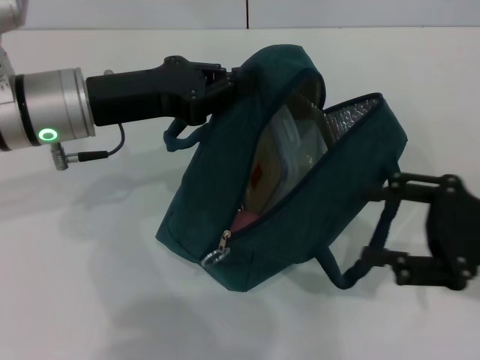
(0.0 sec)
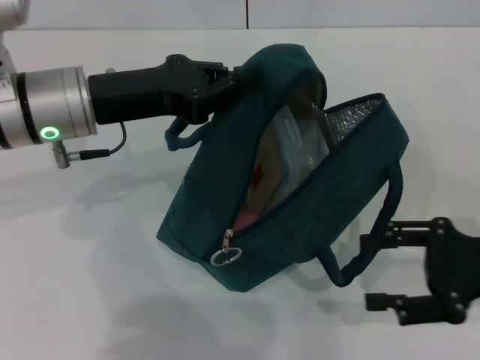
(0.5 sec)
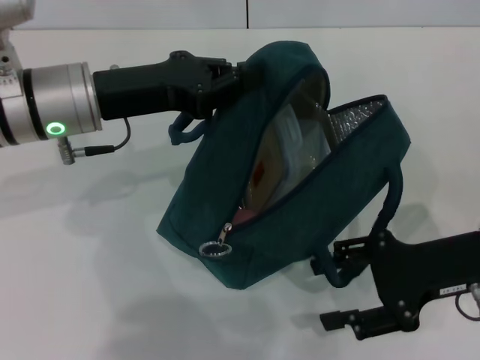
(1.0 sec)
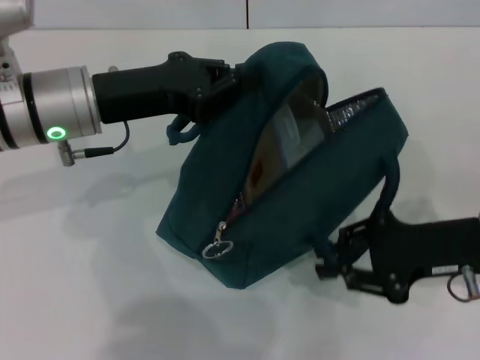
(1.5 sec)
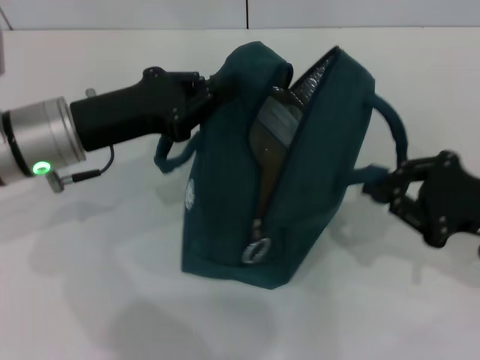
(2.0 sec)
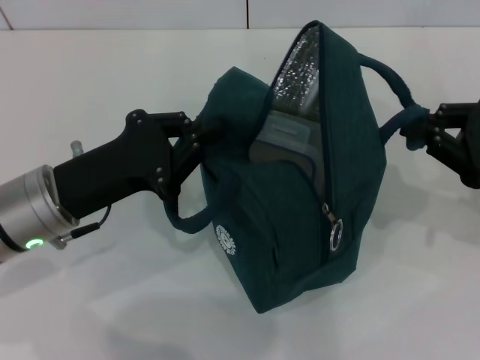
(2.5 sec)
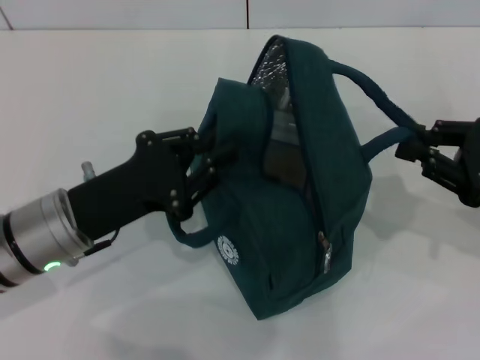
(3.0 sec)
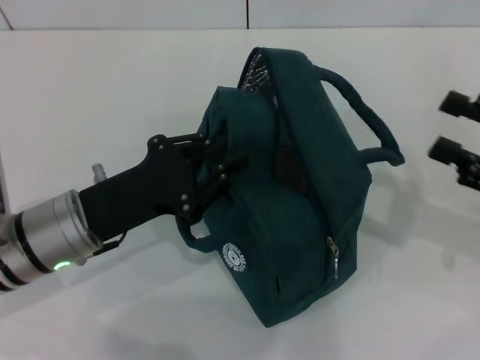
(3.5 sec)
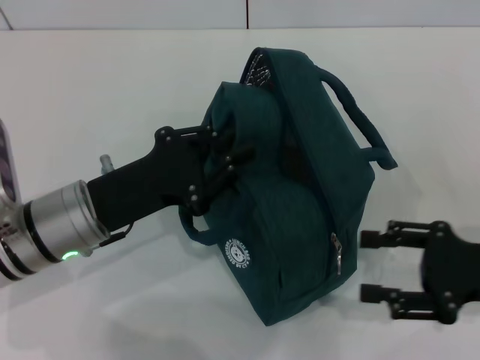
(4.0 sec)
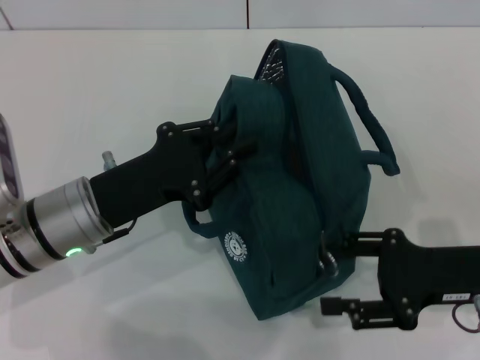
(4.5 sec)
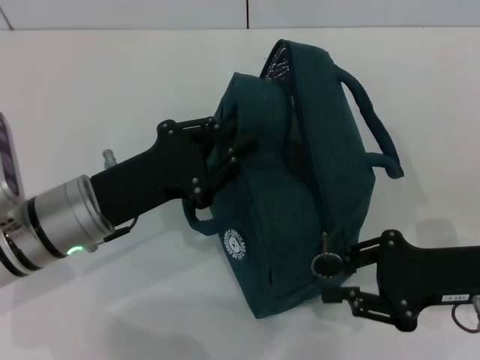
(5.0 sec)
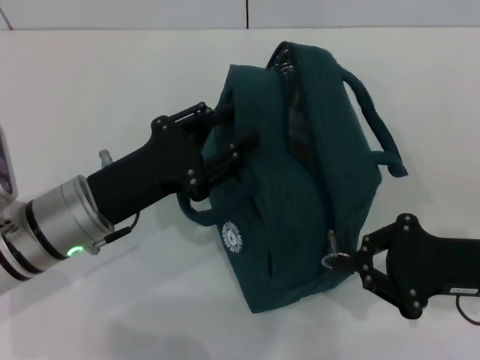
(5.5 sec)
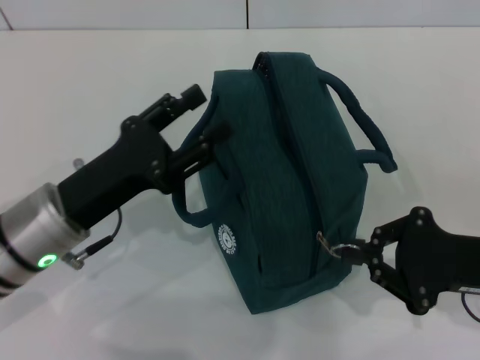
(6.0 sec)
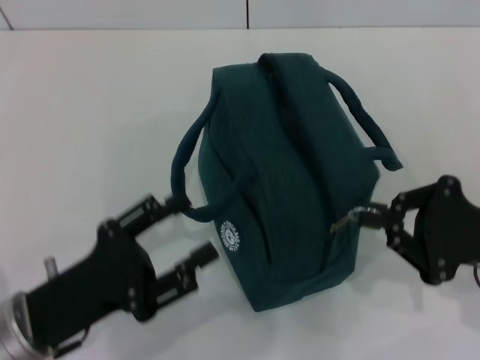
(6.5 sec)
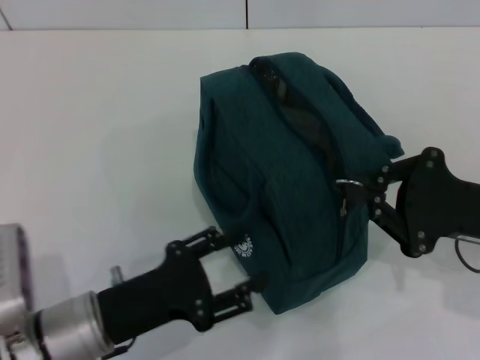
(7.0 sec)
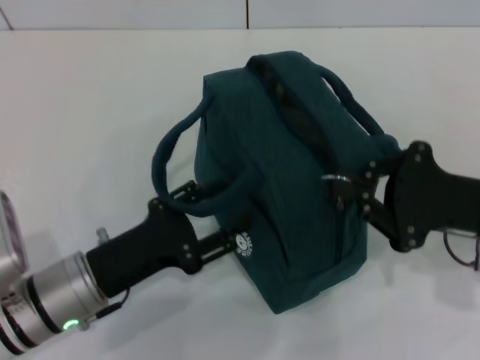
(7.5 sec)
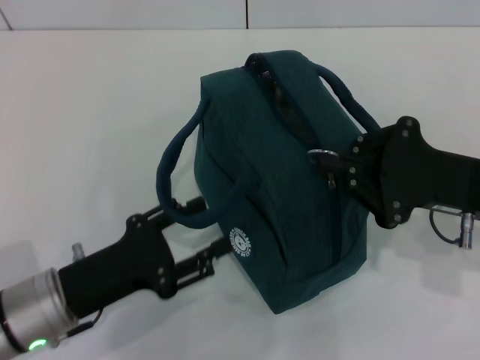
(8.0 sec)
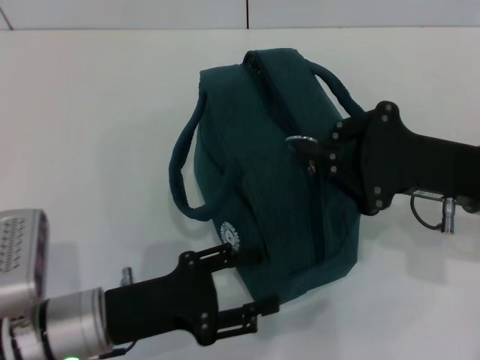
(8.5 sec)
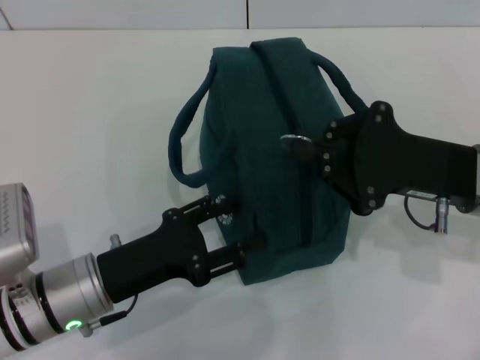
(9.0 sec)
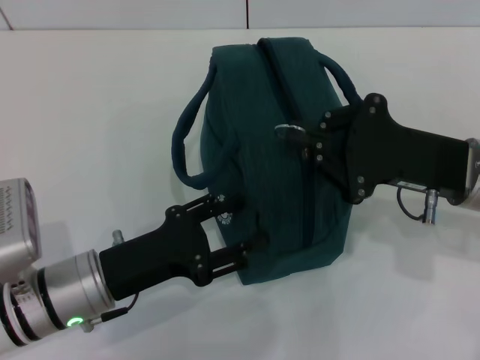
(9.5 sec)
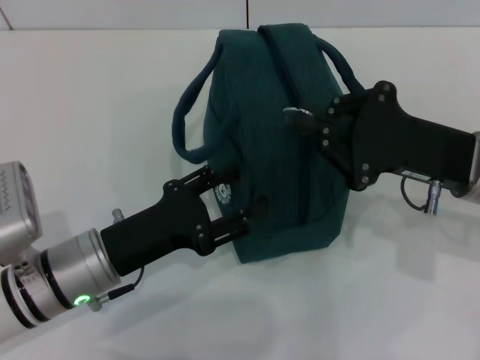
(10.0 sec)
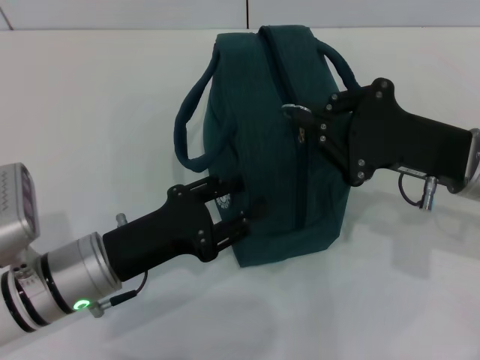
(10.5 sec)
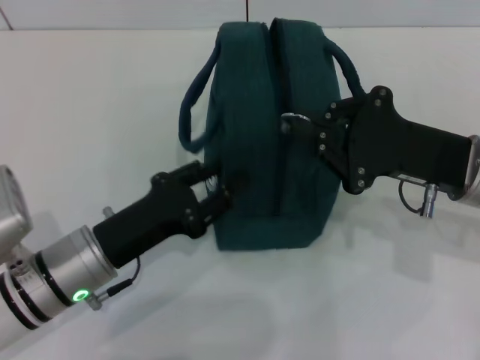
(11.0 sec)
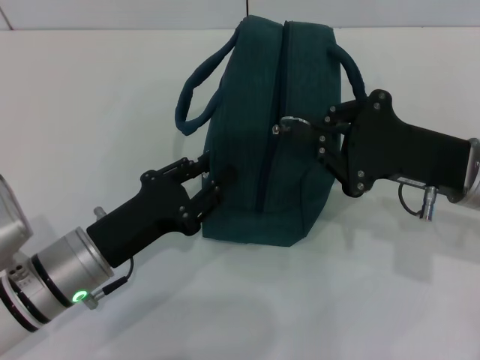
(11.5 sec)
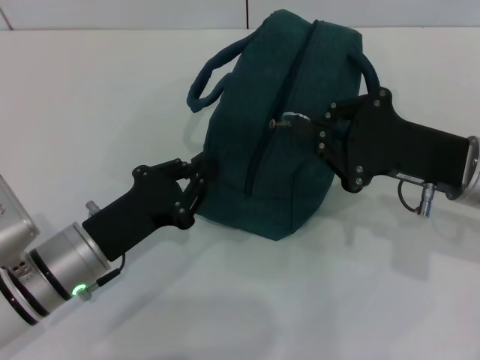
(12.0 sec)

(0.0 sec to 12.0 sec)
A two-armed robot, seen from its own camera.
Step, 0.0 sec - 3.0 sec: Hold the lunch bag with your right hand.
0.0 sec - 2.0 sec: The right gripper closes.
2.0 sec - 4.0 sec: The left gripper is displaced backward and downward by some 10 cm. Meanwhile the right gripper opens.
4.0 sec - 6.0 sec: The right gripper closes its fingers; the left gripper opens up.
6.0 sec - 8.0 sec: The right gripper changes place by approximately 5 cm; the left gripper ends up about 5 cm from where it was.
10.0 sec - 12.0 sec: The left gripper closes its fingers.

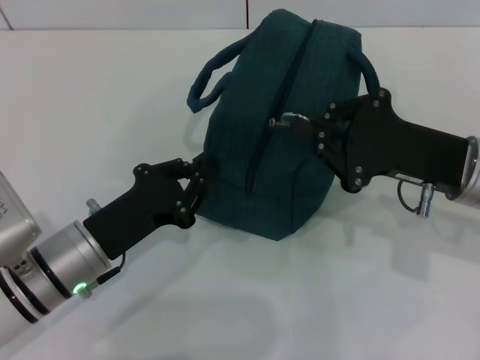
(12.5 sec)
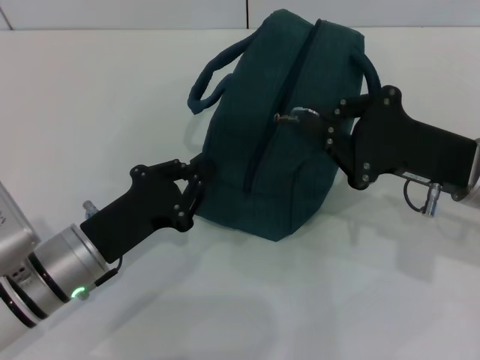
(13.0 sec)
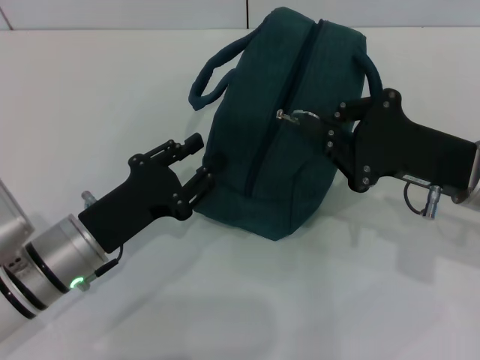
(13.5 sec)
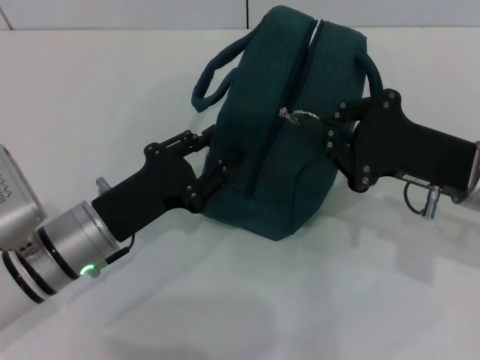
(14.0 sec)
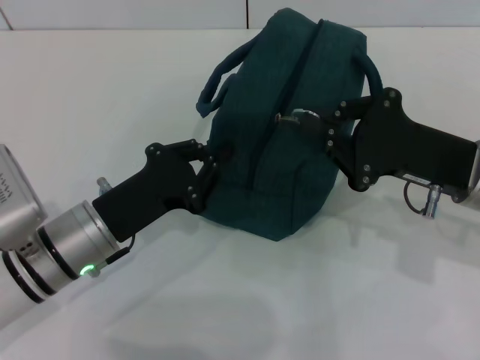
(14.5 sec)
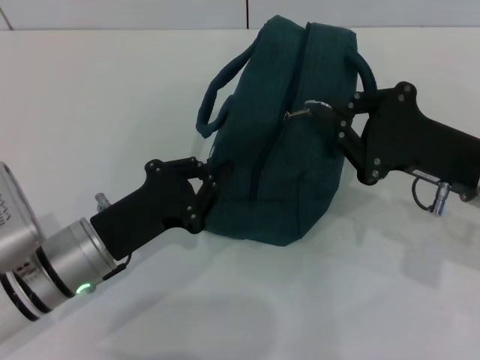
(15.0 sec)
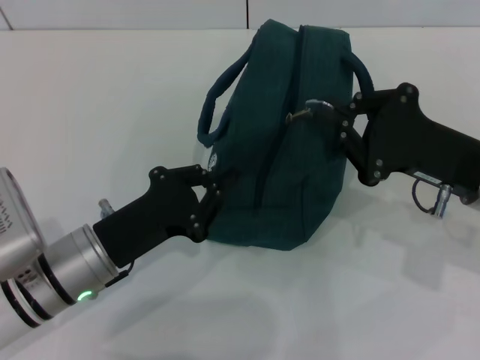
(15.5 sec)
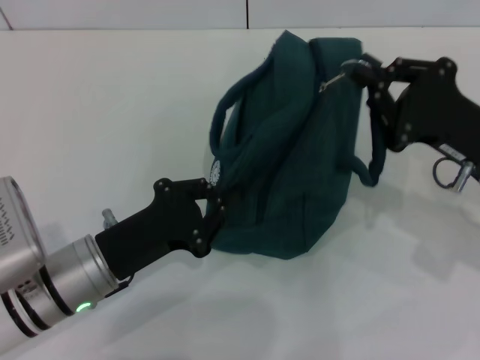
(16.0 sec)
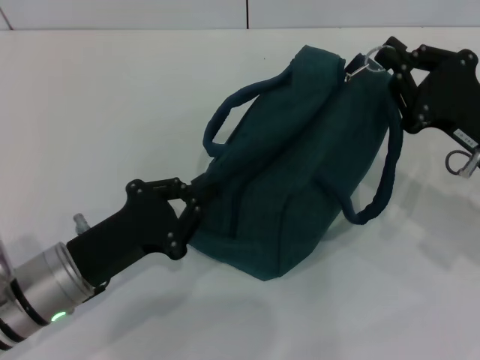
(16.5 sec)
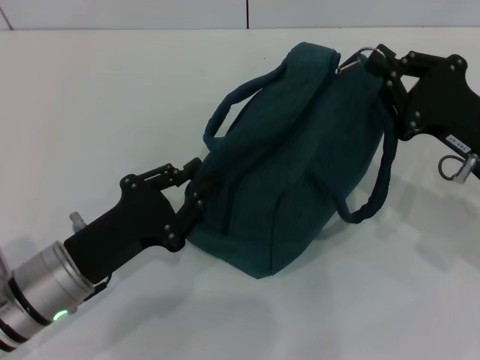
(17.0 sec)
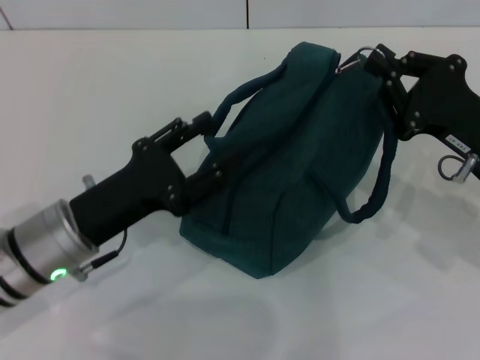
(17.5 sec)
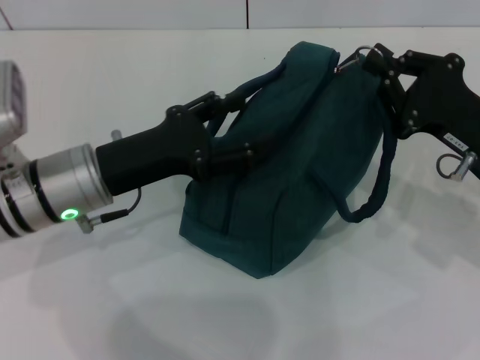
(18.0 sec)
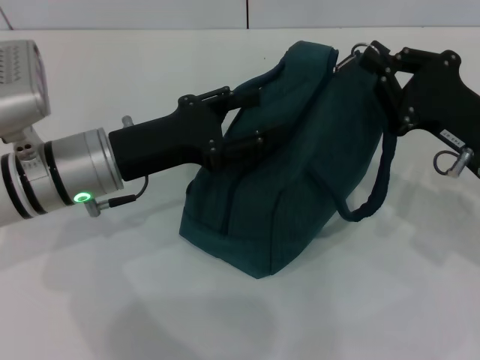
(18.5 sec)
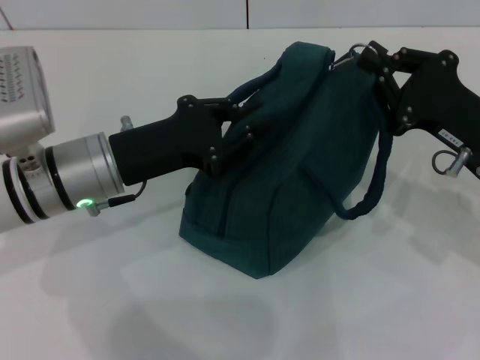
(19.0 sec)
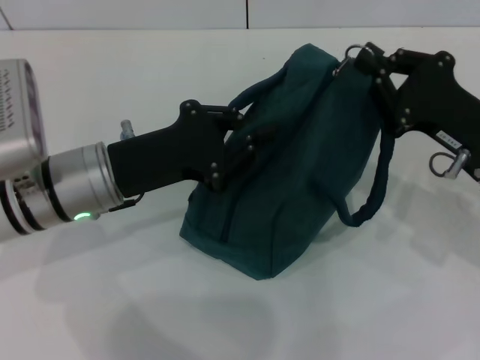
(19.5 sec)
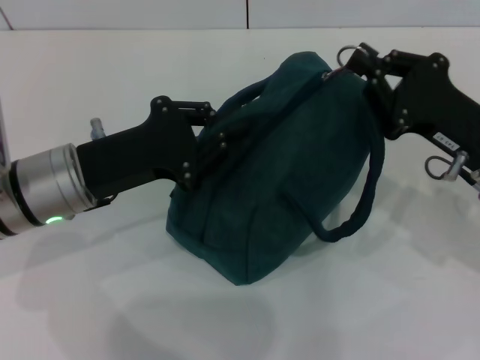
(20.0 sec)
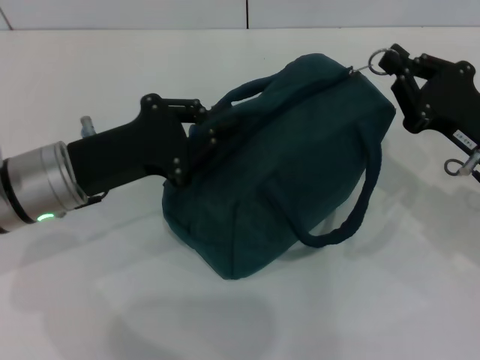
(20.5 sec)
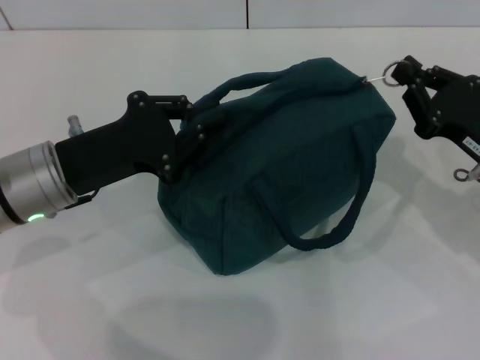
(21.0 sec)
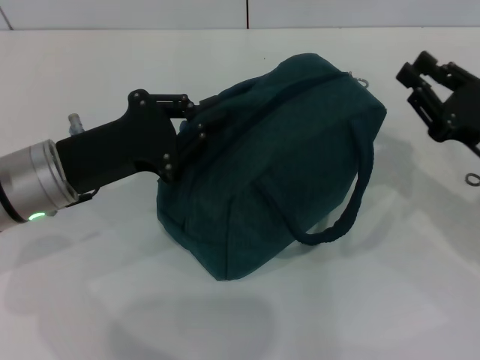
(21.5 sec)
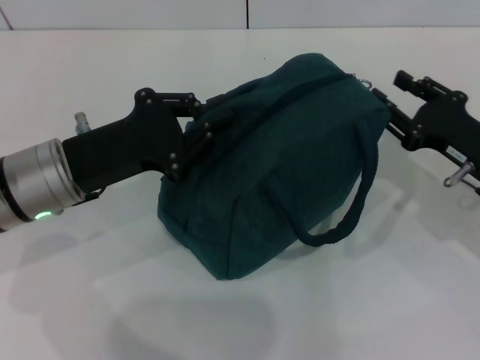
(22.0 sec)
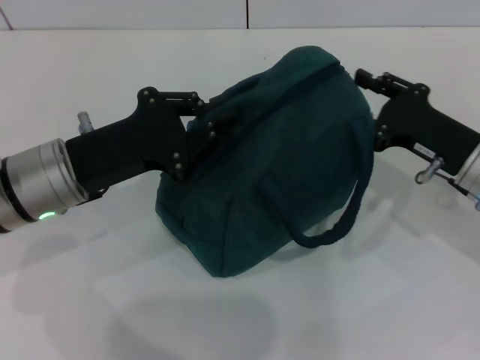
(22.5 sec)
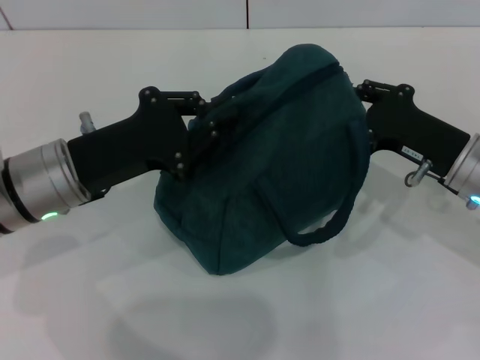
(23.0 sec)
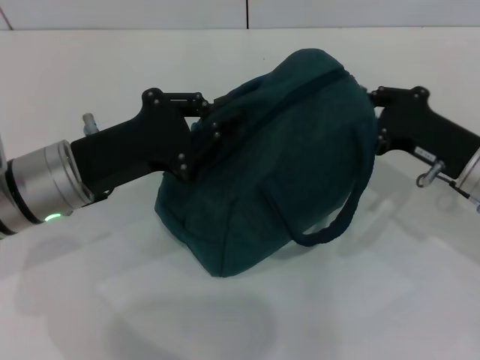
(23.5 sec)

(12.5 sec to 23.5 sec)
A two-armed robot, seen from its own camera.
12.5 sec - 14.5 sec: The grippers make only small movements.
16.0 sec - 18.0 sec: The left gripper heads upward and forward, covering approximately 10 cm, and opens.
18.0 sec - 20.0 sec: The left gripper closes its fingers.
20.0 sec - 21.5 sec: There are only small adjustments of the grippers.
21.5 sec - 23.5 sec: The right gripper opens, then closes again.

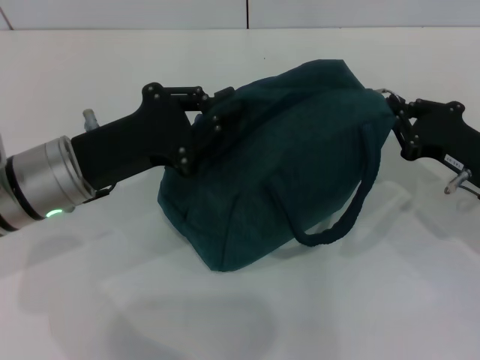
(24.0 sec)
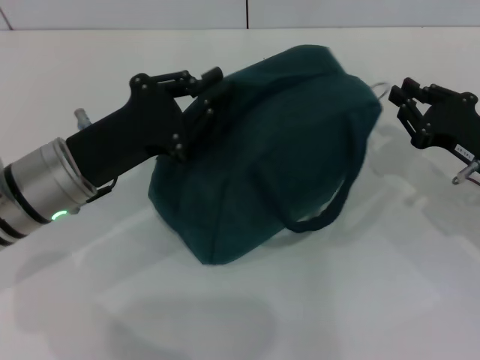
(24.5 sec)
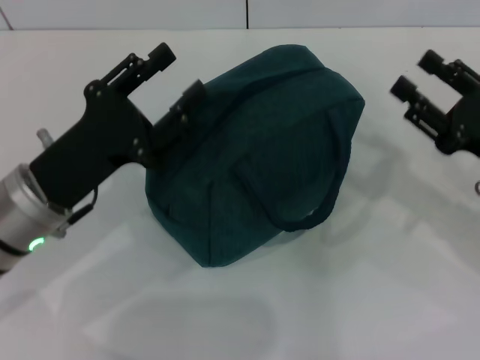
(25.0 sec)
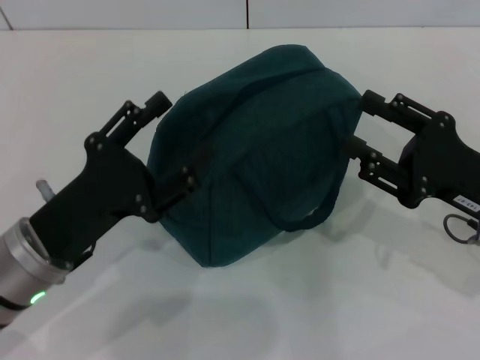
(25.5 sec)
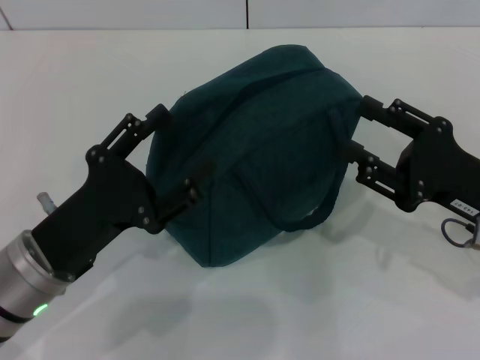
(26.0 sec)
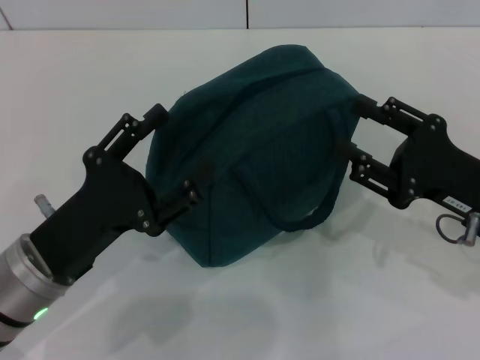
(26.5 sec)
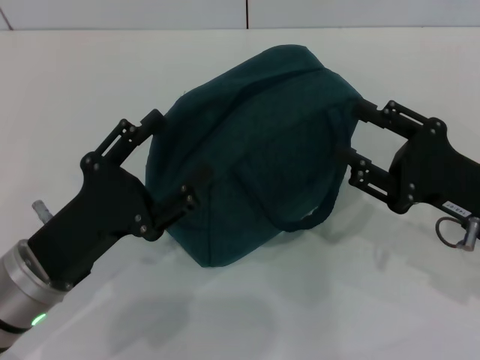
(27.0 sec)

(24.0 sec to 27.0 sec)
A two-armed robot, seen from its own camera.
24.0 sec - 25.5 sec: The two grippers go about 5 cm backward. The left gripper opens; the right gripper opens.
25.5 sec - 27.0 sec: The grippers stay close to where they were, moving slightly.
